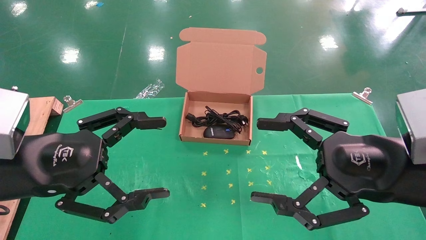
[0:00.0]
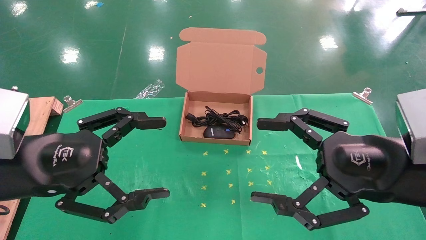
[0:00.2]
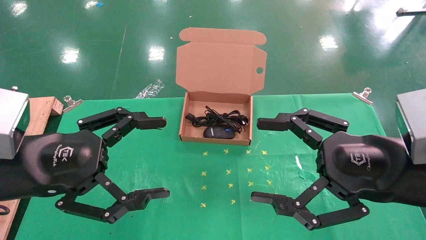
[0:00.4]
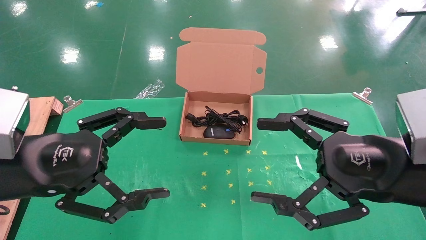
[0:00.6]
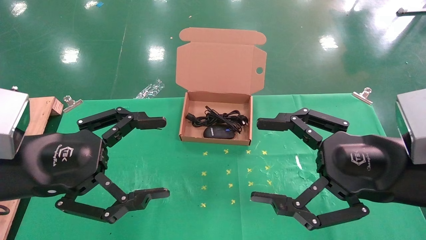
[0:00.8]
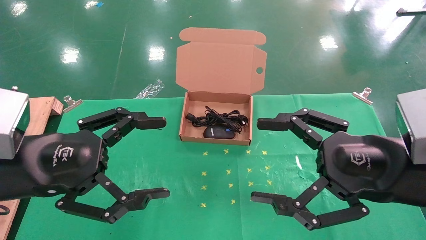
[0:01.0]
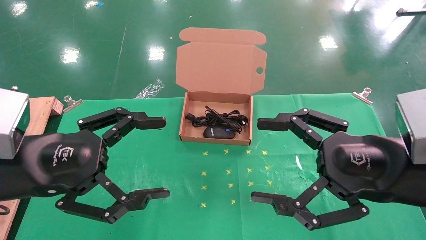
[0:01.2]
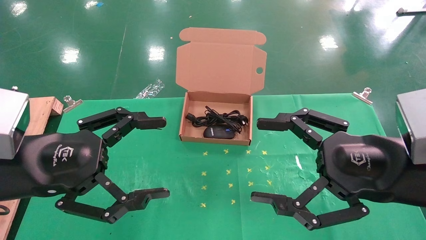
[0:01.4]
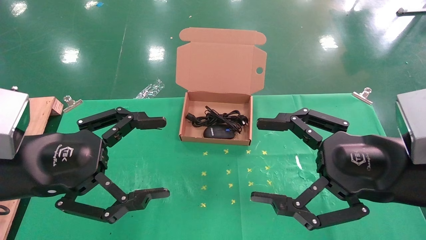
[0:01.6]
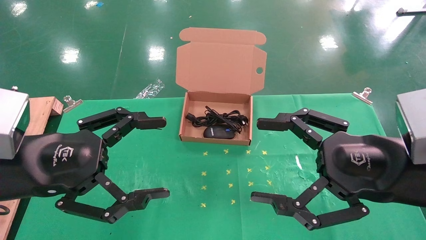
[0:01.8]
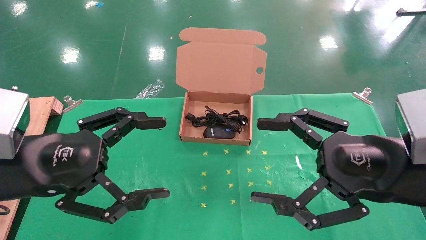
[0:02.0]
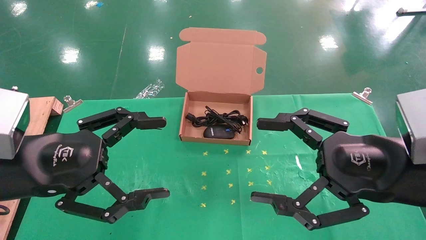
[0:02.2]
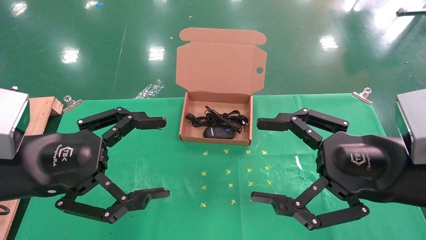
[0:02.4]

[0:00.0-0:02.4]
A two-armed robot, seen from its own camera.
Task of the whole recording: grasp data cable left put into box grasp mouse right put into box.
0:00.0 to 0:02.4: Both grippers stay put.
